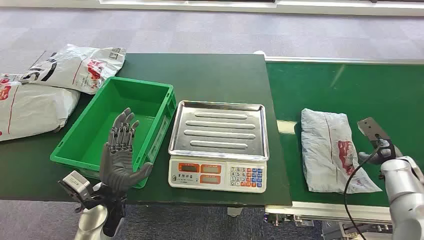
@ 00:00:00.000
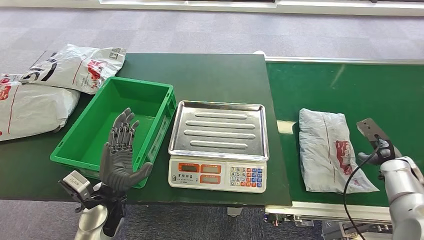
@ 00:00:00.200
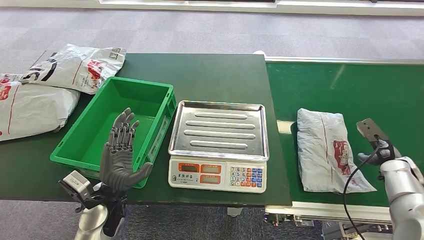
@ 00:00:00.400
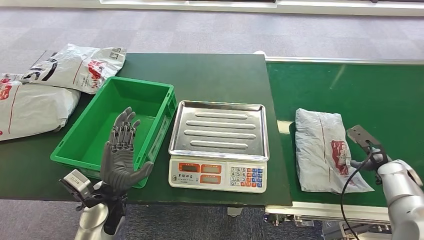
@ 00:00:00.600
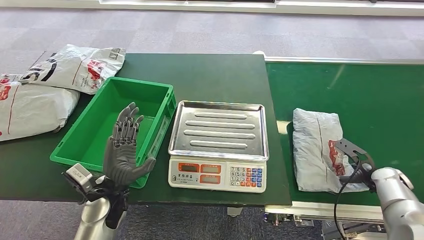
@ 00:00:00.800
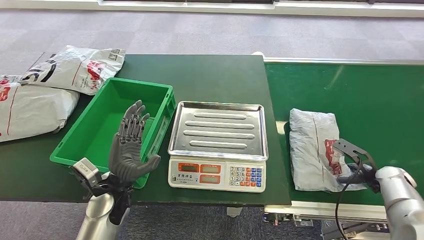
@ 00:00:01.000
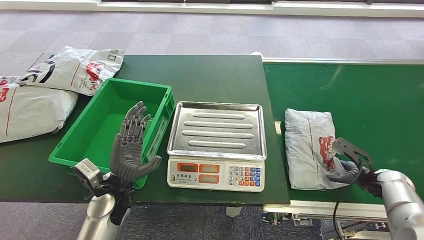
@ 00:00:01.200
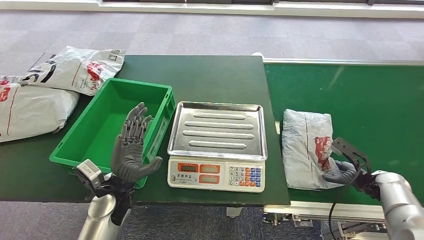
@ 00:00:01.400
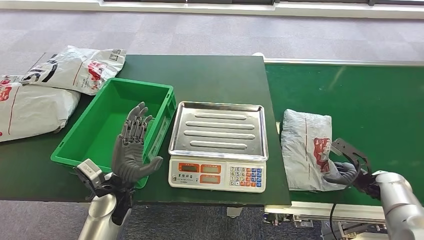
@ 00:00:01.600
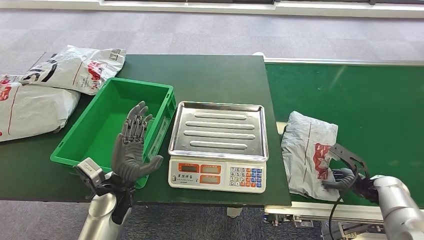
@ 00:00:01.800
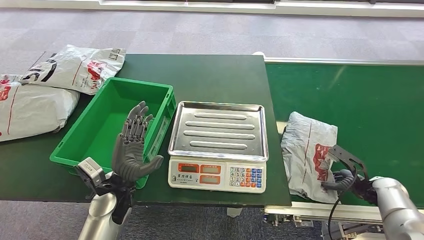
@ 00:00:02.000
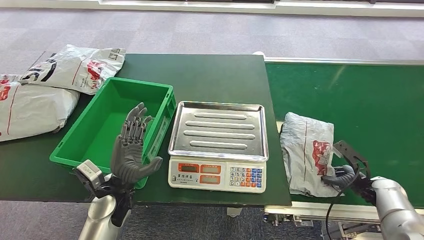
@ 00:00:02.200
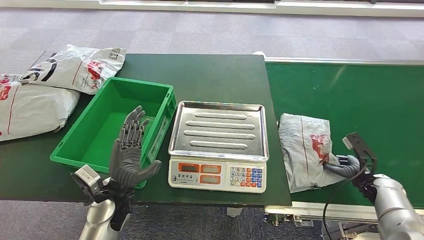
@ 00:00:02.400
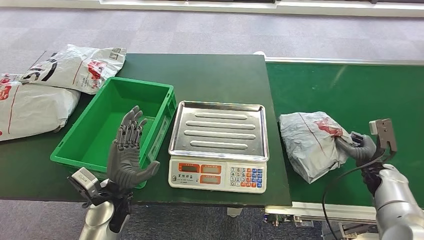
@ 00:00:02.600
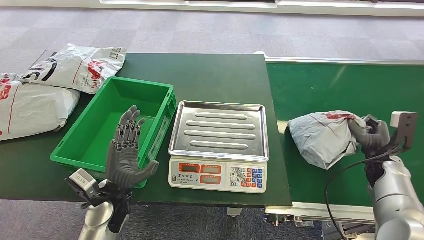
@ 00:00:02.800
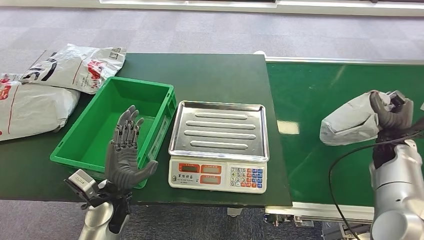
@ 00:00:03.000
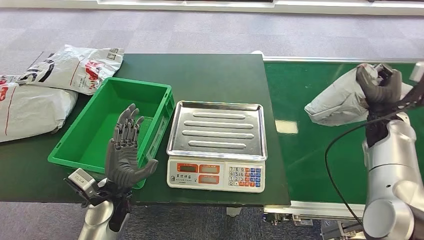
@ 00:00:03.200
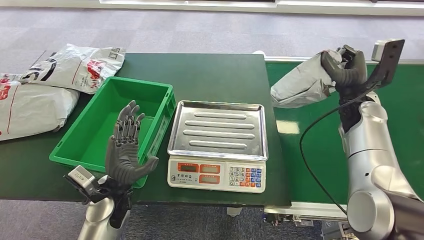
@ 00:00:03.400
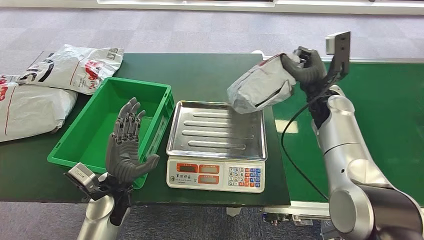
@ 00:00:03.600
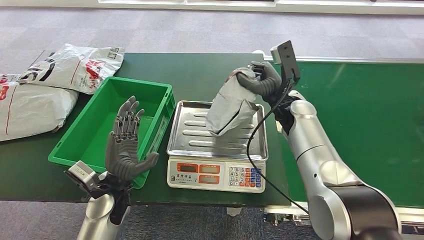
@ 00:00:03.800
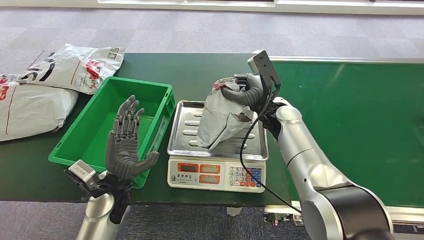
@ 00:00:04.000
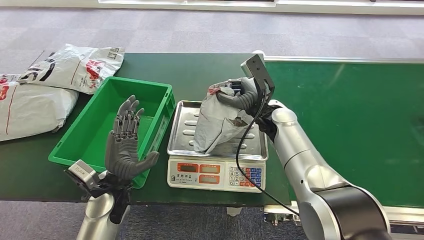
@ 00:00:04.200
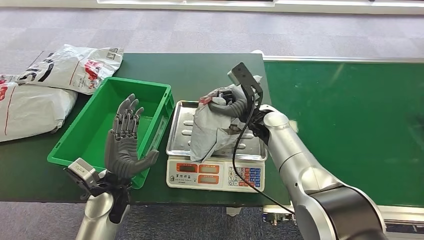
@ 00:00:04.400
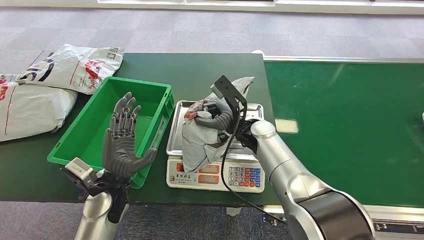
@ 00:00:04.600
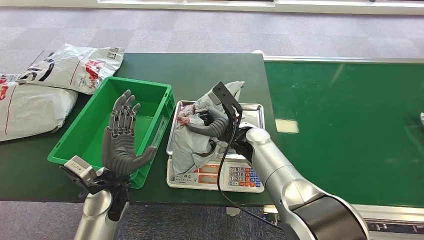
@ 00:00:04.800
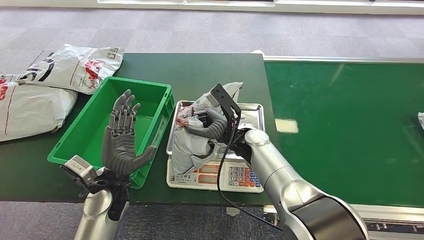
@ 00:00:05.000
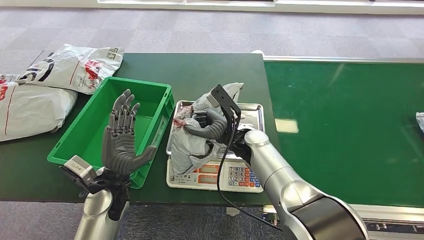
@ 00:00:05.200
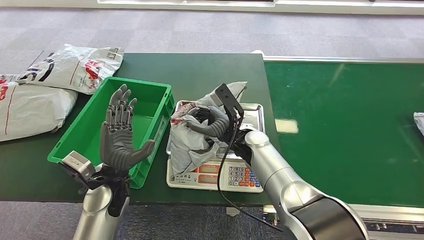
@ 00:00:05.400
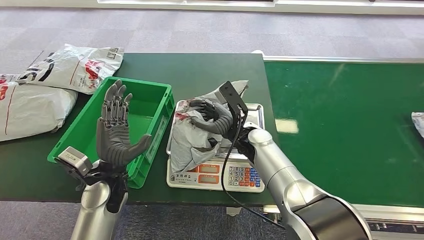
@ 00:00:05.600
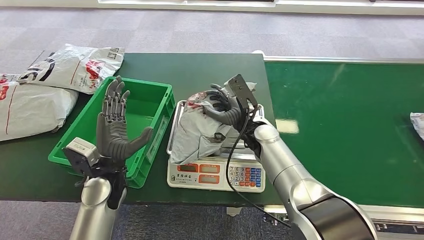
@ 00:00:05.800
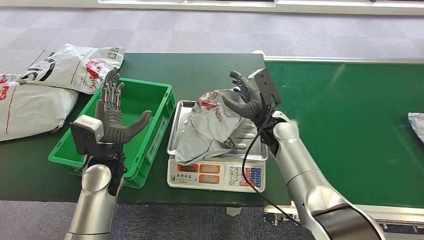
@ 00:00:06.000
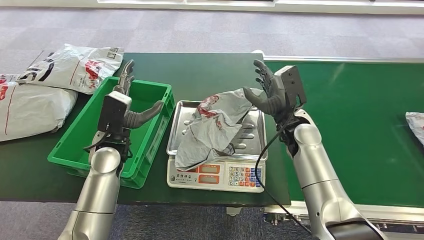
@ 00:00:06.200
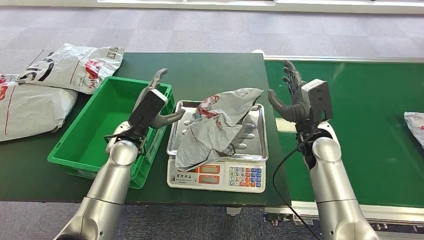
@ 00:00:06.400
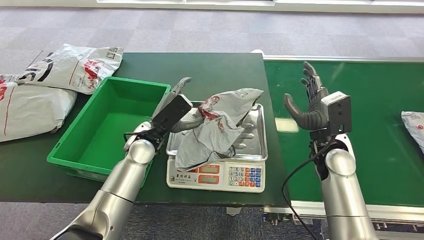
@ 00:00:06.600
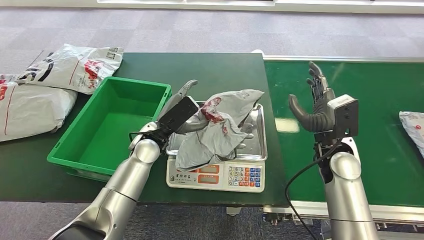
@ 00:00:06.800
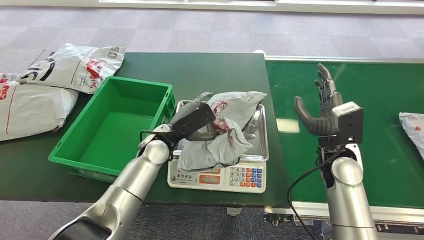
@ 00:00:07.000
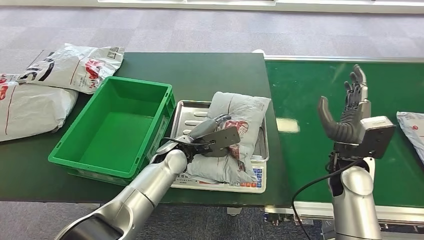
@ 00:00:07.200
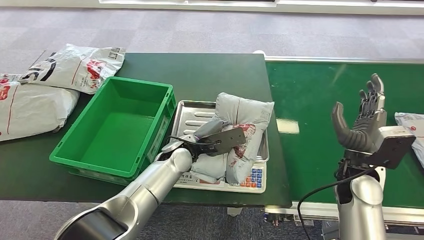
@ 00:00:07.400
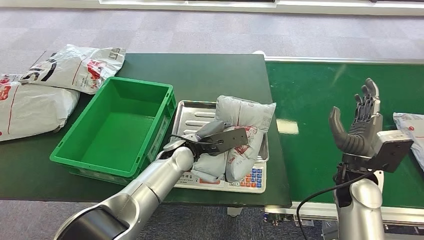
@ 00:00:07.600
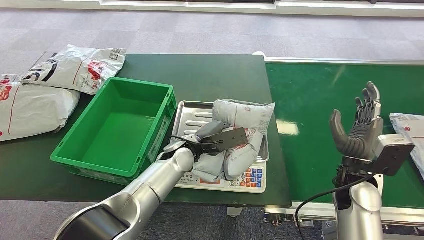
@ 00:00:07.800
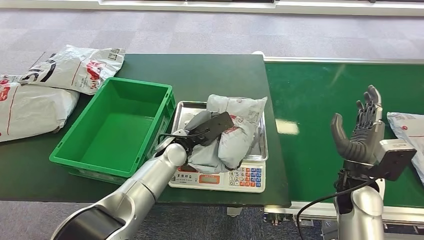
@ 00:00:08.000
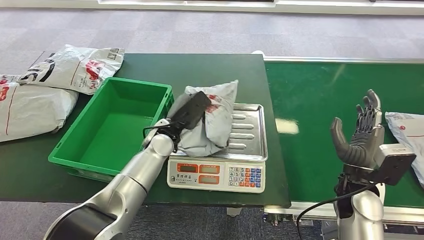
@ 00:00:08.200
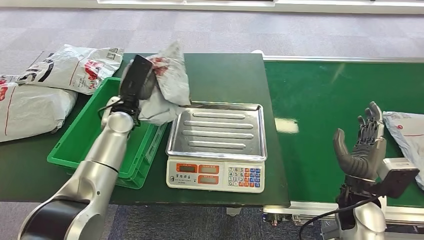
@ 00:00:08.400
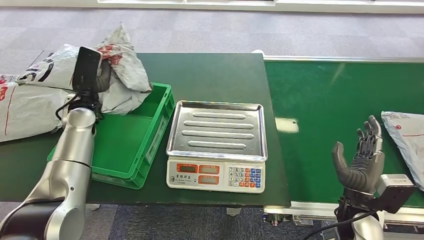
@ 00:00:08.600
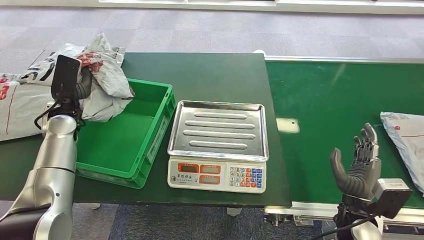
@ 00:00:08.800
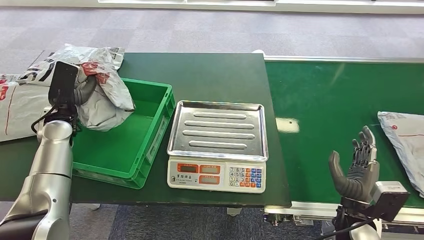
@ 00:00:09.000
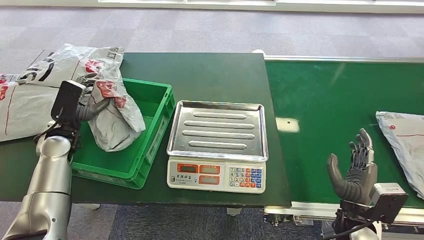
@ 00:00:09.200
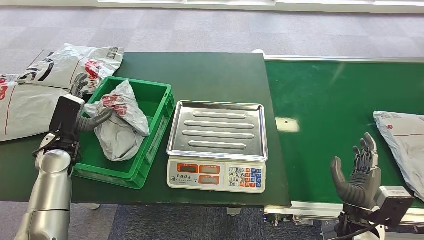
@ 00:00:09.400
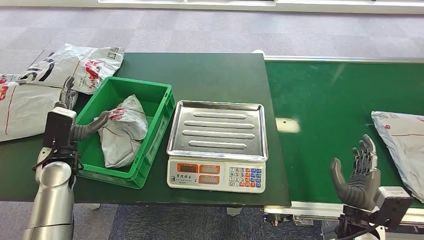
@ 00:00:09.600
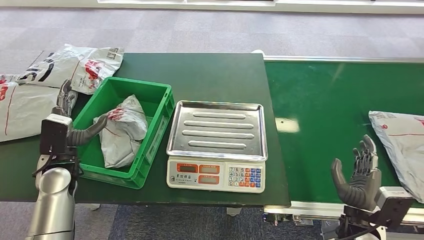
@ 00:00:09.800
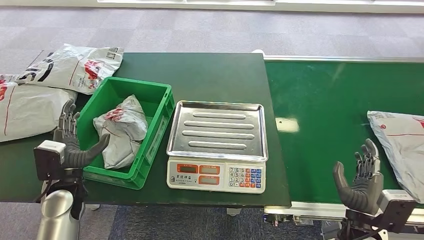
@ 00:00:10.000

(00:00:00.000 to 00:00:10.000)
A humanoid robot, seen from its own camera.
Step, 00:00:00.000 - 00:00:03.400: Pick up the package from the conveyor belt.
Step, 00:00:03.800 - 00:00:06.000: Place the package onto the inbound machine.
Step, 00:00:06.400 - 00:00:08.400: Pick up the package from the inbound machine.
Step, 00:00:08.800 - 00:00:10.000: Place the package into the parcel locker.
00:00:08.600 - 00:00:10.000: The left hand travels backward and downward by roughly 20 cm.

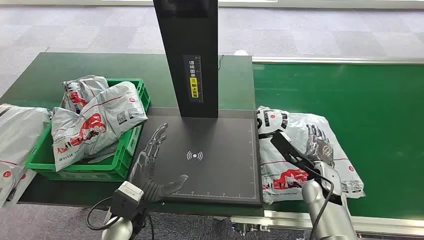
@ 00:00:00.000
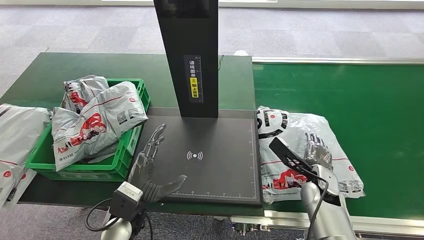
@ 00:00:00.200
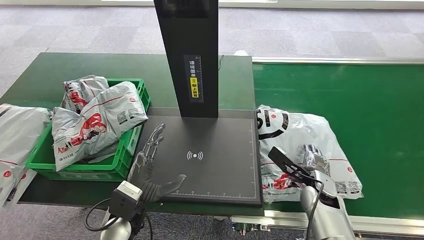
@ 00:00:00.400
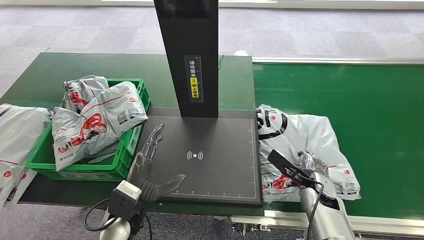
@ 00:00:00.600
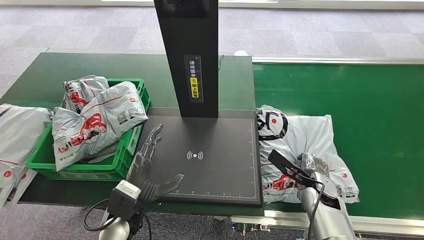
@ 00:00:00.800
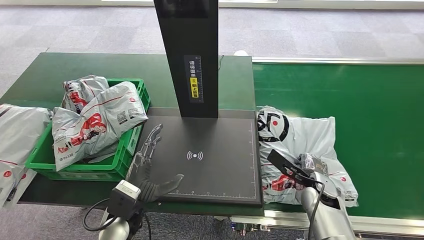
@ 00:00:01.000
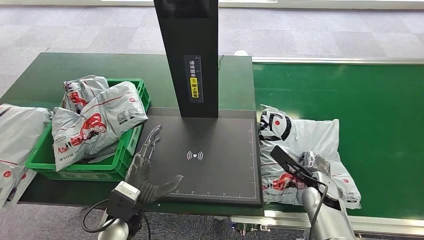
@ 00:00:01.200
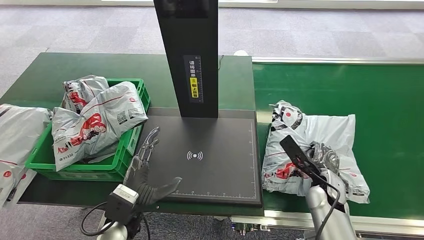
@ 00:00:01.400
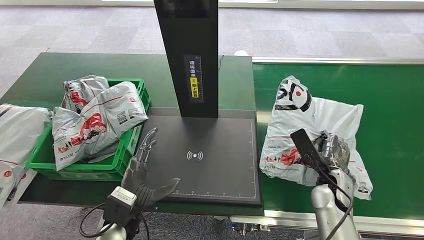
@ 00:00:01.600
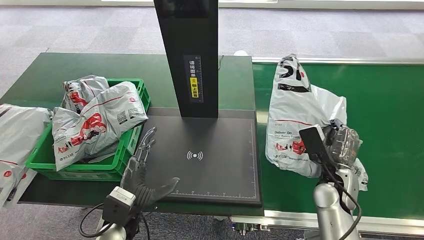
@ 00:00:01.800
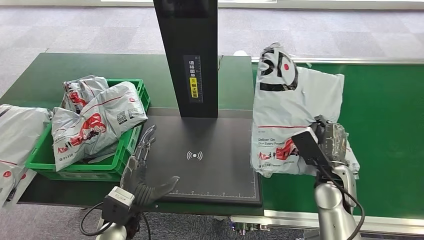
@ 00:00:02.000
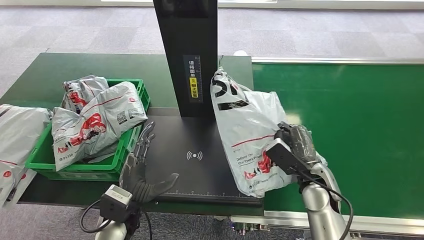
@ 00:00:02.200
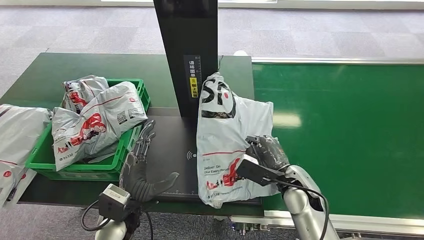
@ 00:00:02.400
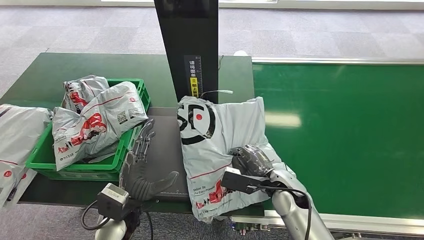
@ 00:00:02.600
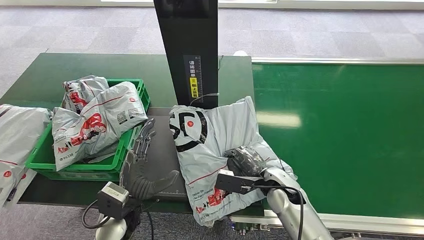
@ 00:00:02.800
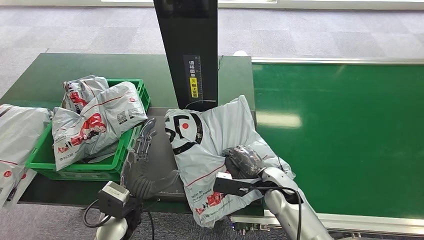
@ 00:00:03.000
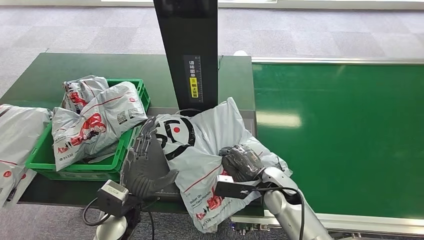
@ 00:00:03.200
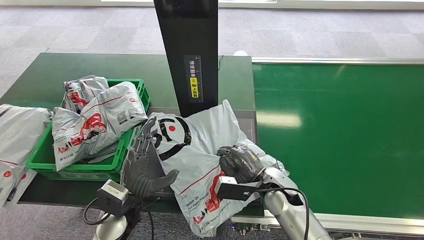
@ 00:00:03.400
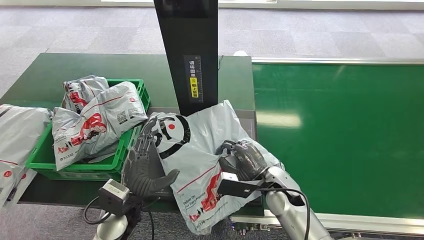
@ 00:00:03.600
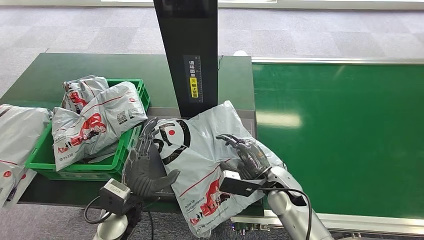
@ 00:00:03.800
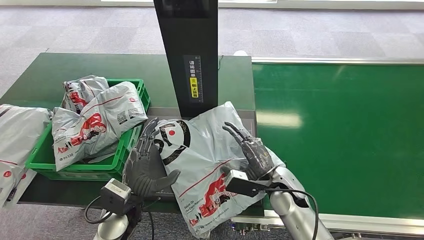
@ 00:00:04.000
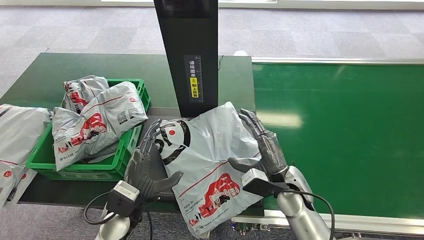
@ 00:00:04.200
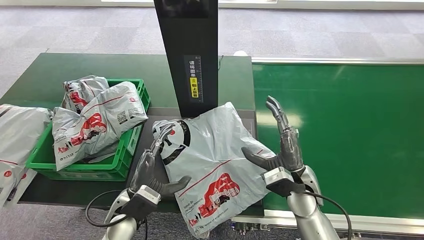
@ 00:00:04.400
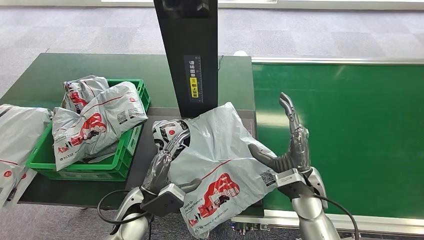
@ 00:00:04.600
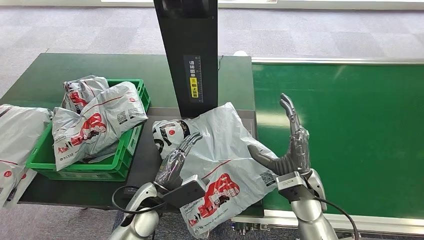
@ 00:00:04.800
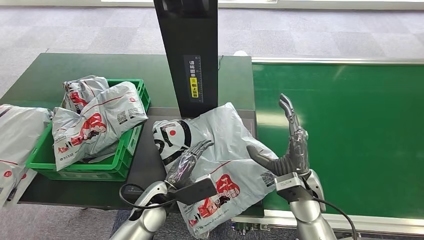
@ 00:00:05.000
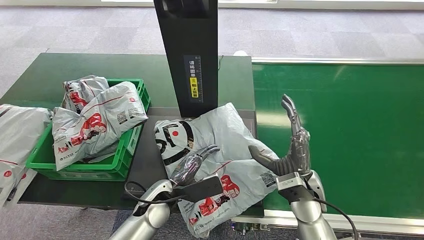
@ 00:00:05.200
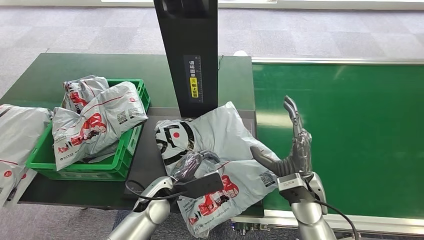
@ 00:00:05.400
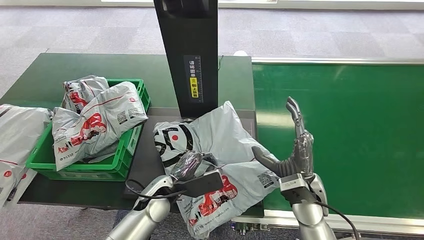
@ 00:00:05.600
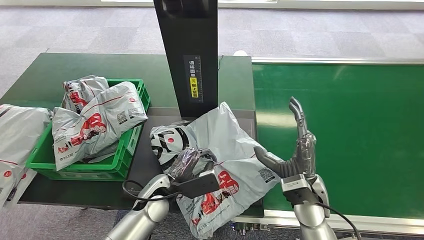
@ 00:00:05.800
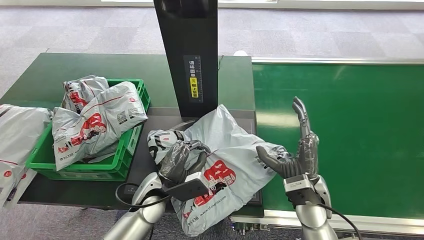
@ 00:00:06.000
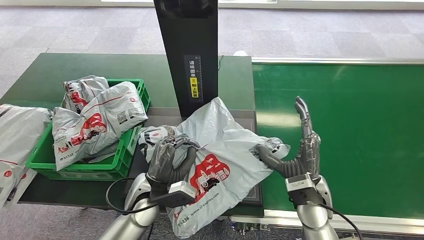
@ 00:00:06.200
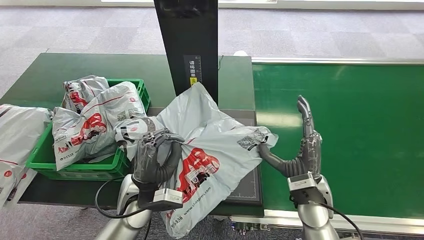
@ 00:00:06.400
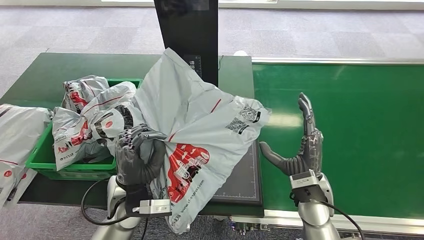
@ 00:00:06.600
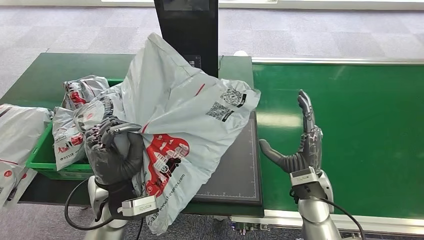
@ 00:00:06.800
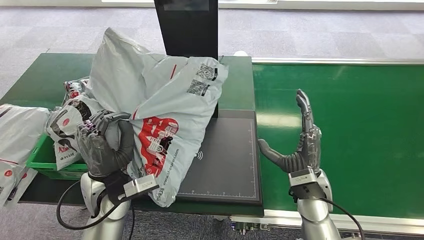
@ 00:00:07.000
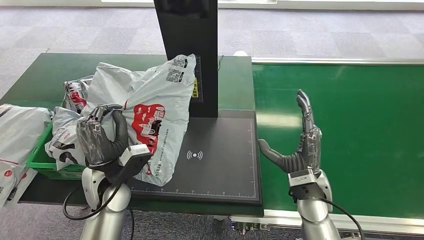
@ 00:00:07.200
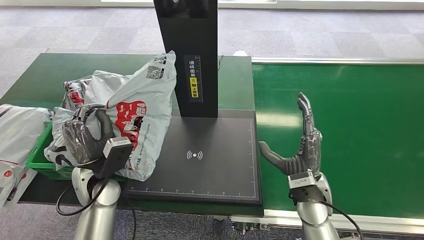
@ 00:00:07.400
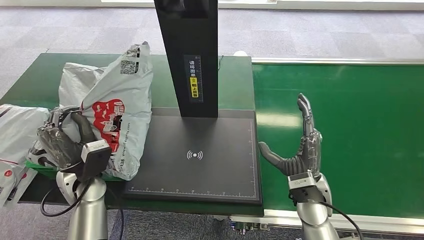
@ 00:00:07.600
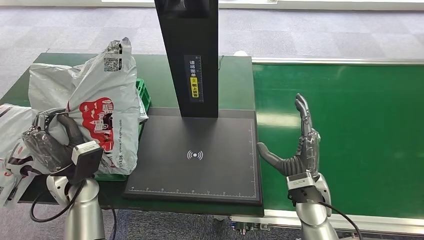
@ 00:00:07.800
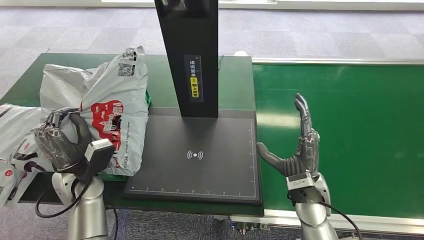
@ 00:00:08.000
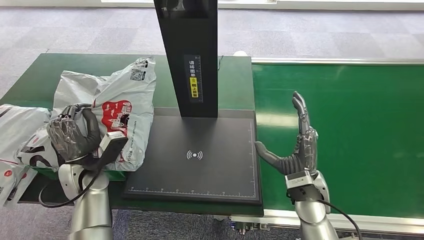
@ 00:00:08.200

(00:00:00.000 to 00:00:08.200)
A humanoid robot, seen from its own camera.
Step, 00:00:00.000 - 00:00:01.800: Pick up the package from the conveyor belt.
Step, 00:00:02.000 - 00:00:04.000: Place the package onto the inbound machine.
Step, 00:00:04.200 - 00:00:06.600: Pick up the package from the inbound machine.
00:00:03.200 - 00:00:05.000: The right hand shifts approximately 5 cm upward. Meanwhile the left hand shifts some 5 cm to the right.
